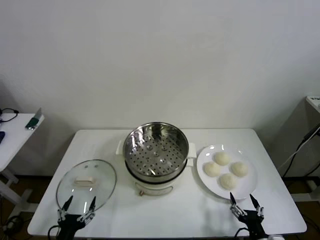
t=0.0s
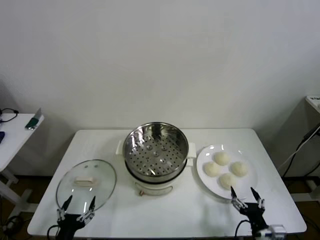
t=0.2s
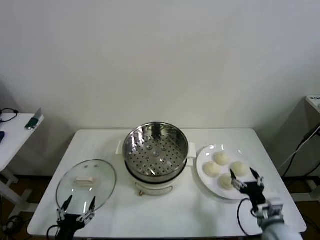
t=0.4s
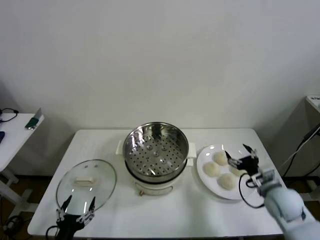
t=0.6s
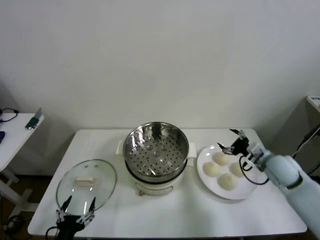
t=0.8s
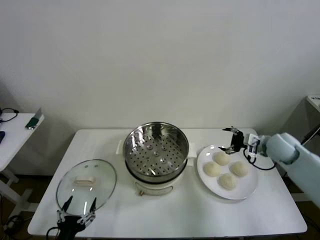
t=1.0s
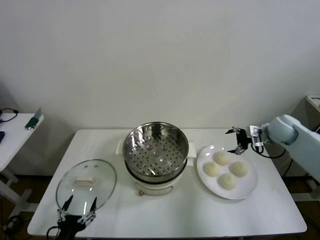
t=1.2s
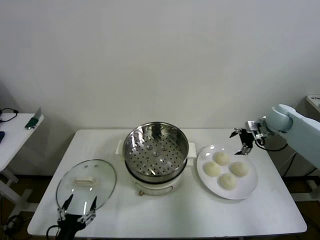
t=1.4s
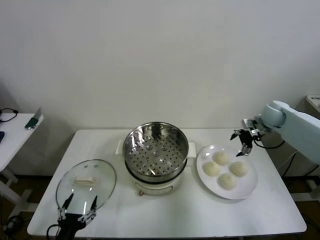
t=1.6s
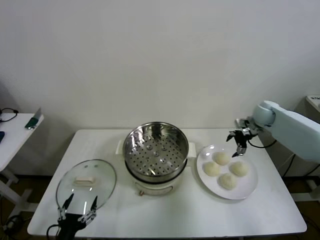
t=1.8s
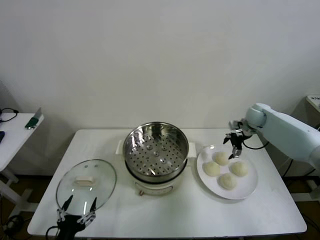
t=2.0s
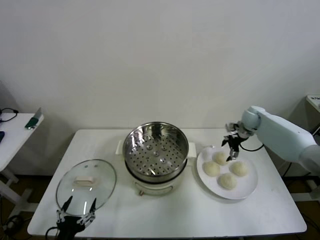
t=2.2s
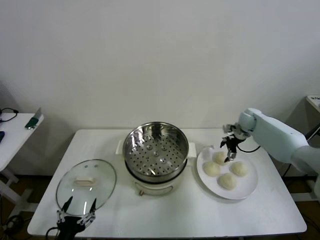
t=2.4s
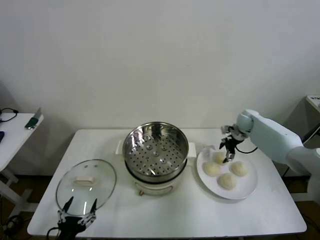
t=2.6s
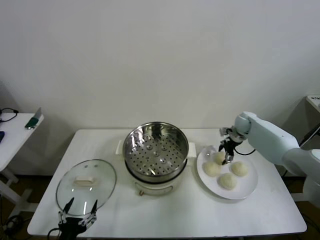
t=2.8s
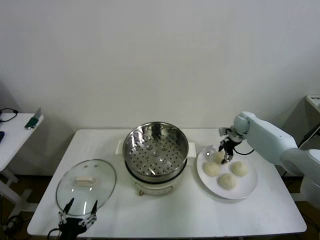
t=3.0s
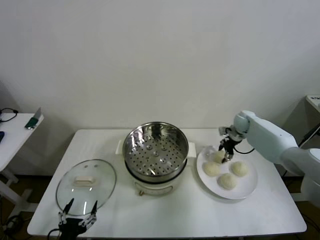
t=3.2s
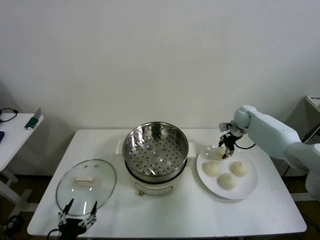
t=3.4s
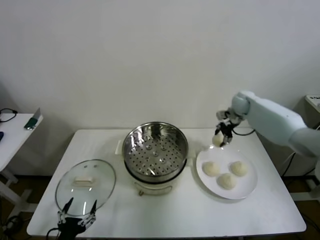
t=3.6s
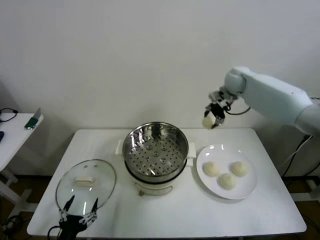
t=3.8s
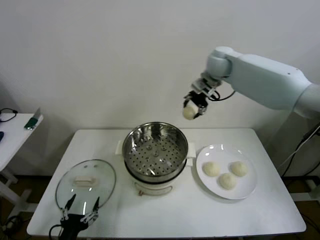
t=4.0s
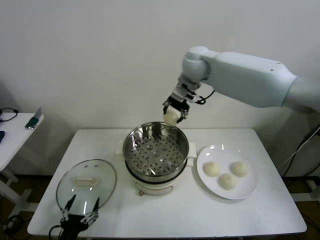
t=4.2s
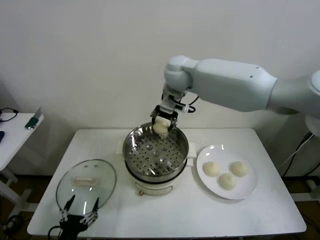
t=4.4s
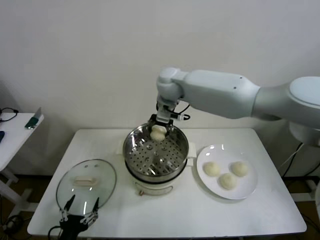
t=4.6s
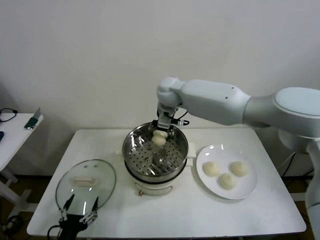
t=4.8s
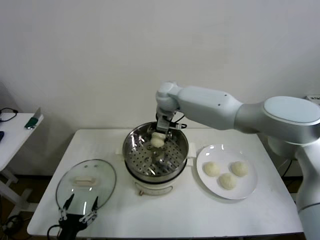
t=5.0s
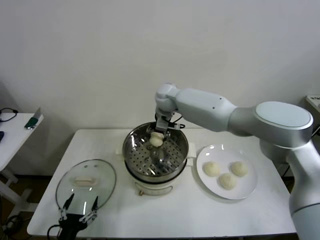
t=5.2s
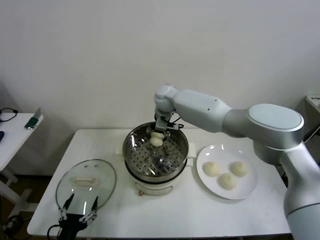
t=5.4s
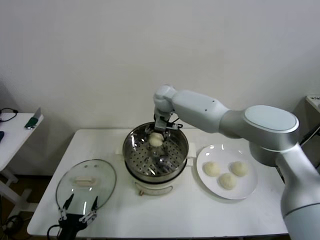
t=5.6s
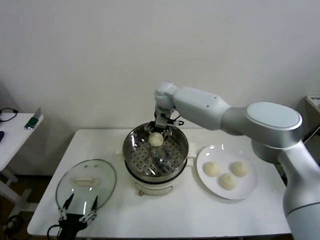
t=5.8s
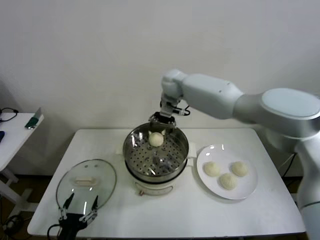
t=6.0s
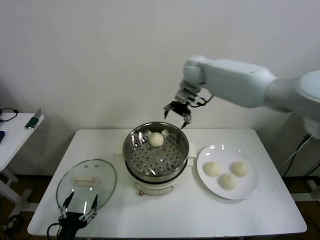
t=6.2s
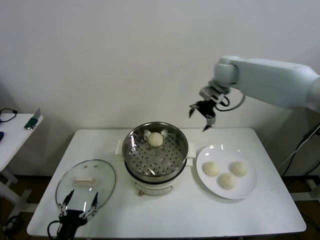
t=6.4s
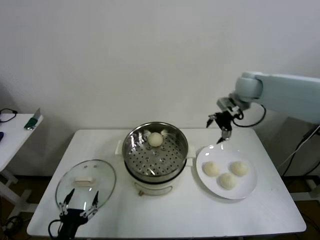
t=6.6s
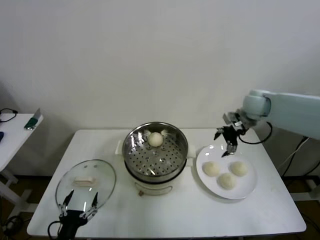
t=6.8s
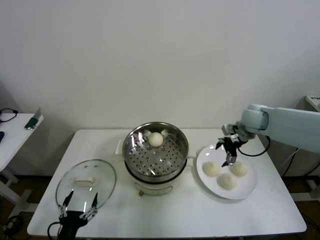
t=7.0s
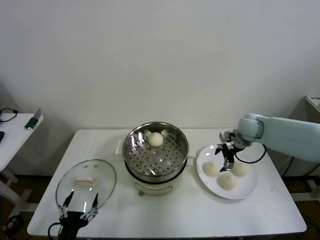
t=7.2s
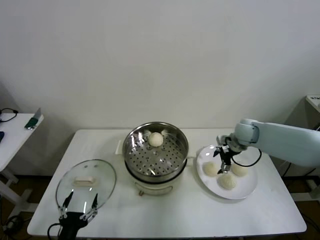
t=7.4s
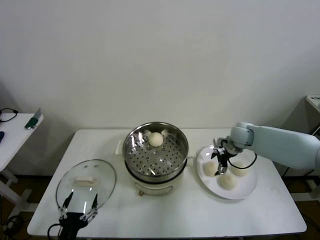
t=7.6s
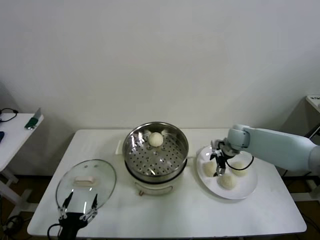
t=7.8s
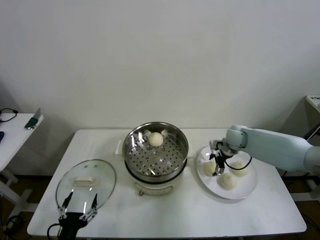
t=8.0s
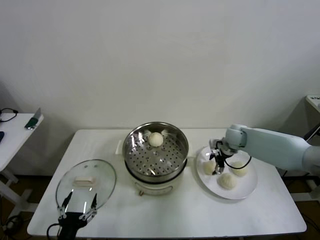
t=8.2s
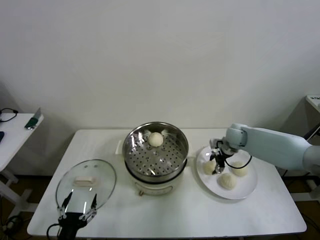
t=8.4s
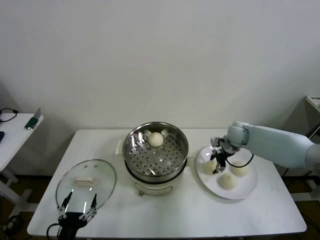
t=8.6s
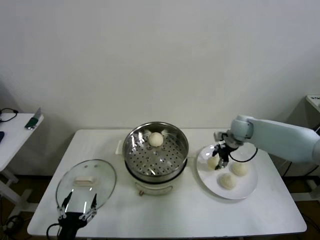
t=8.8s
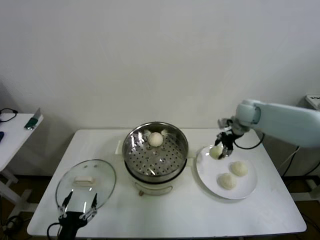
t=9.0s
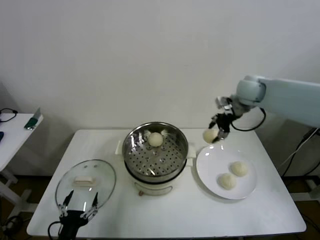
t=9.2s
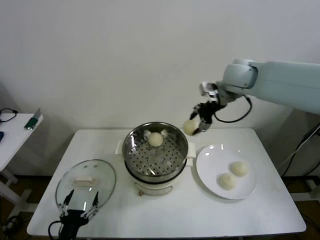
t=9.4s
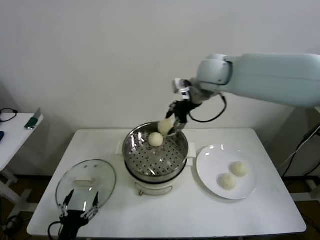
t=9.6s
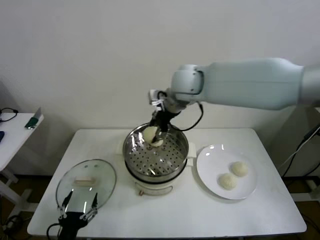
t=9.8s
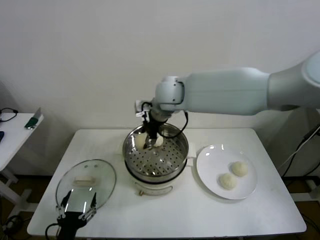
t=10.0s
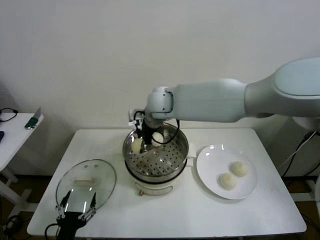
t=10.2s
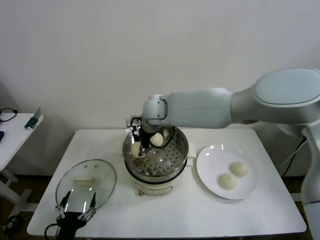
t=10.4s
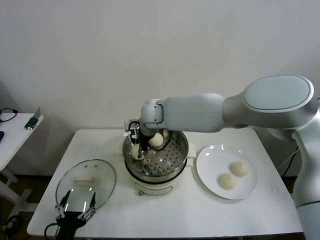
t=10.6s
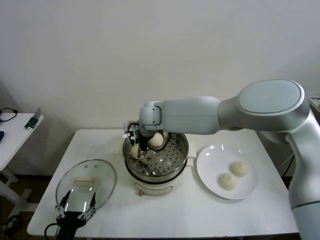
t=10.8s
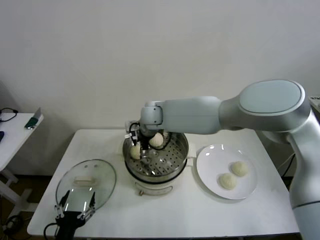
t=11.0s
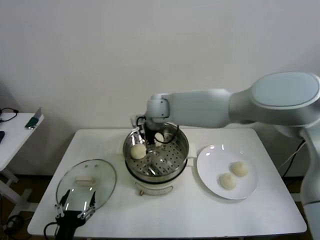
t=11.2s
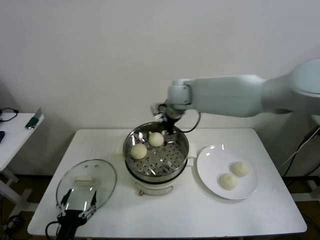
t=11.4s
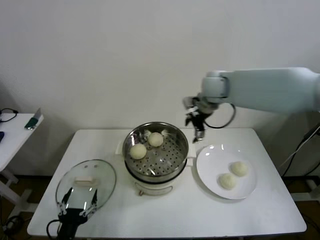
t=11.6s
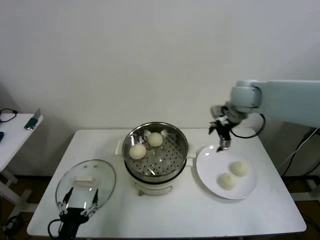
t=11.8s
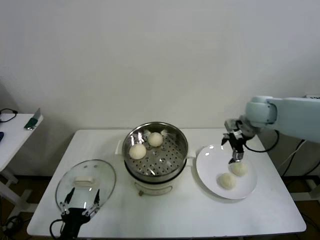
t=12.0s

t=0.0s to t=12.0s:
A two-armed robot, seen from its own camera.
Step, t=0.0s to t=3.0s: Grasp the baozi in the plate with right gripper.
Step, t=3.2s to t=5.8s: Place the baozi on the steamer with right gripper.
Step, t=6.2s to t=8.2s: Grasp the baozi in the plate with right gripper.
Step, t=8.4s to t=11.2s: Place the baozi on the steamer with right gripper.
t=1.6s to t=3.0s: The right gripper heads downward, covering about 10 cm, and closes its fingers.
t=3.0s to t=4.4s: The right gripper goes approximately 40 cm to the left and upward.
t=4.4s to t=6.0s: The right gripper heads forward, covering roughly 5 cm, moves roughly 10 cm downward and comes back, and opens its fingers.
t=6.0s to t=7.6s: The right gripper heads to the right and downward, covering some 30 cm.
t=7.6s to t=9.0s: The right gripper is displaced upward by approximately 15 cm, and closes its fingers.
t=9.0s to t=10.4s: The right gripper heads to the left, covering some 35 cm.
t=10.4s to t=12.0s: The right gripper heads to the right, covering approximately 35 cm, and opens its fingers.

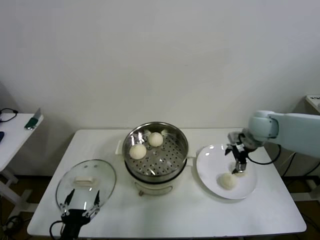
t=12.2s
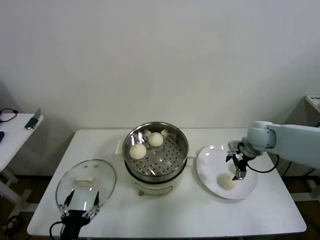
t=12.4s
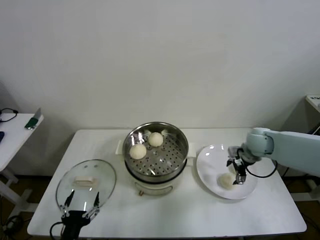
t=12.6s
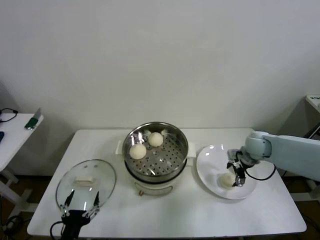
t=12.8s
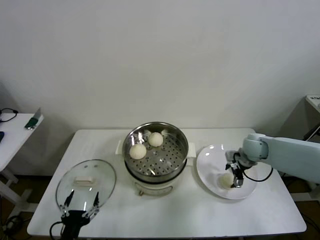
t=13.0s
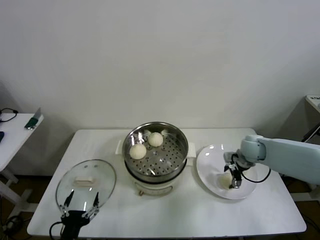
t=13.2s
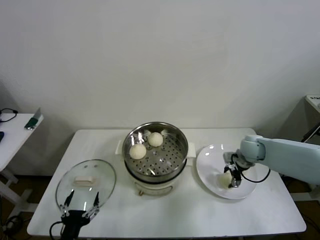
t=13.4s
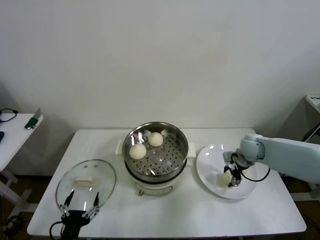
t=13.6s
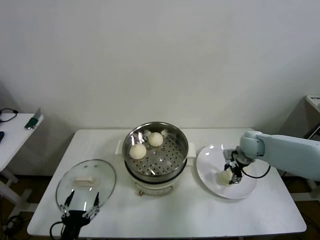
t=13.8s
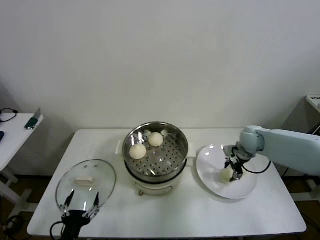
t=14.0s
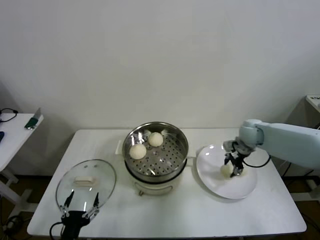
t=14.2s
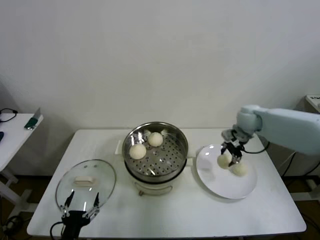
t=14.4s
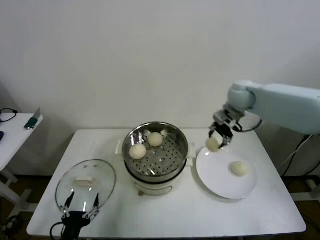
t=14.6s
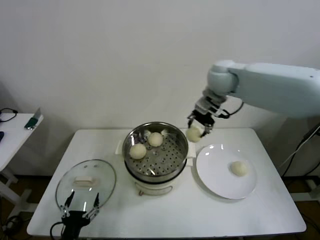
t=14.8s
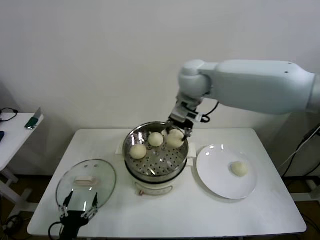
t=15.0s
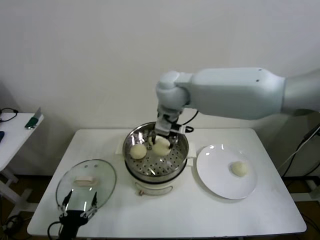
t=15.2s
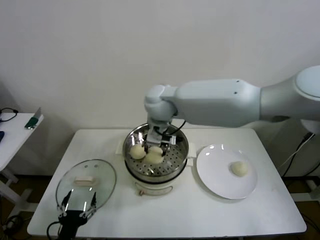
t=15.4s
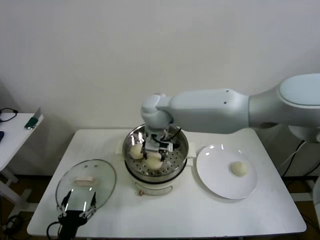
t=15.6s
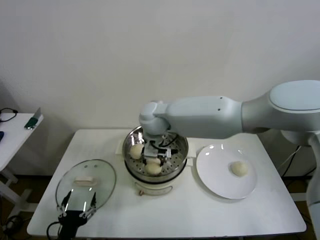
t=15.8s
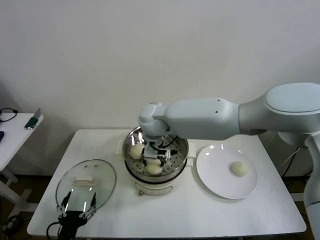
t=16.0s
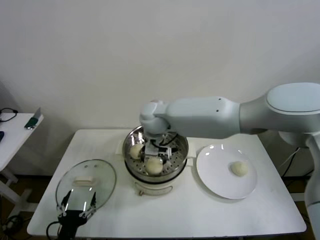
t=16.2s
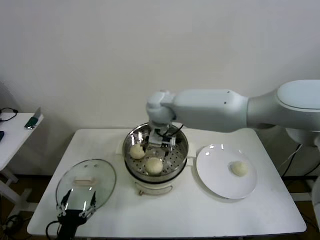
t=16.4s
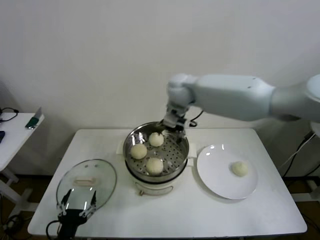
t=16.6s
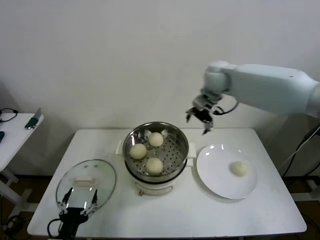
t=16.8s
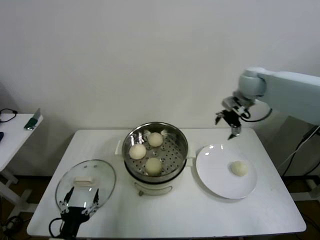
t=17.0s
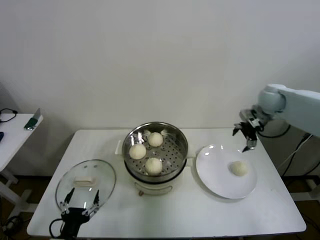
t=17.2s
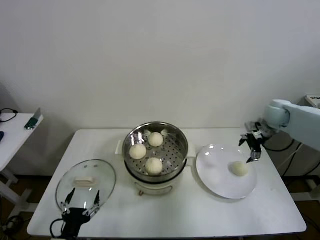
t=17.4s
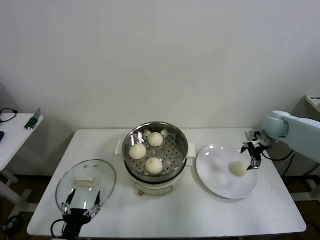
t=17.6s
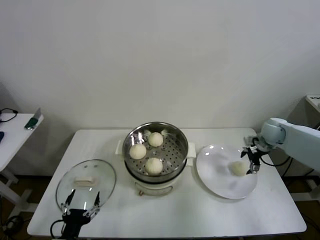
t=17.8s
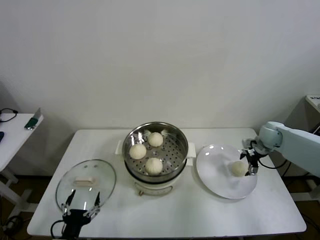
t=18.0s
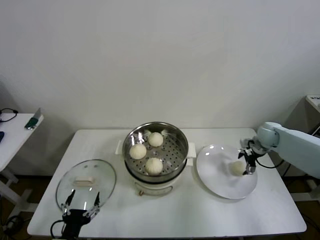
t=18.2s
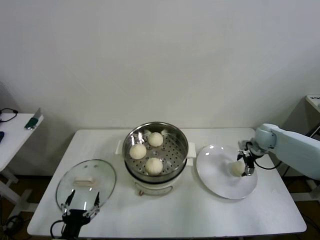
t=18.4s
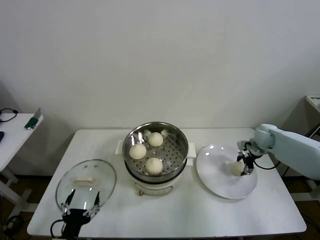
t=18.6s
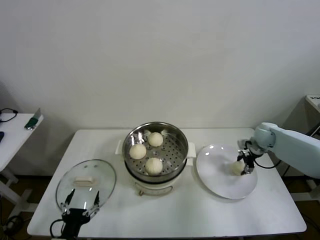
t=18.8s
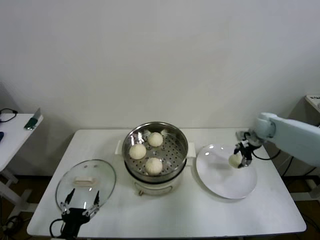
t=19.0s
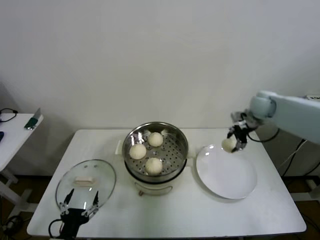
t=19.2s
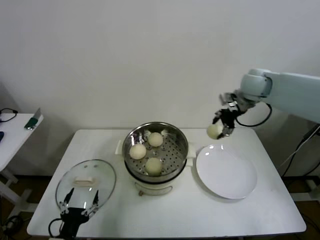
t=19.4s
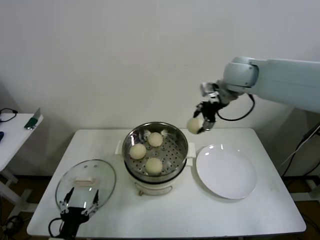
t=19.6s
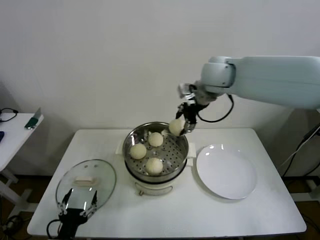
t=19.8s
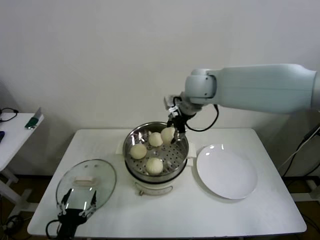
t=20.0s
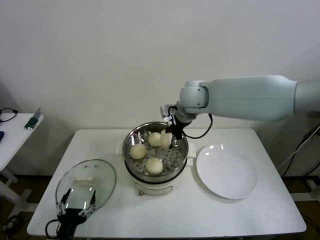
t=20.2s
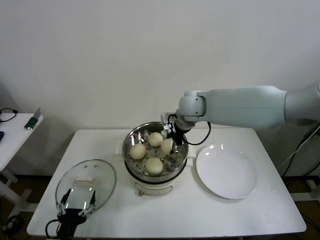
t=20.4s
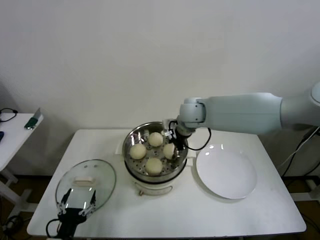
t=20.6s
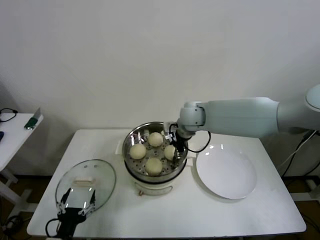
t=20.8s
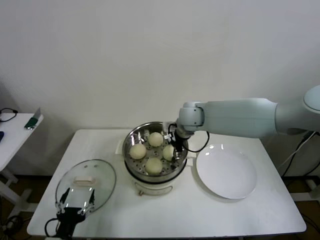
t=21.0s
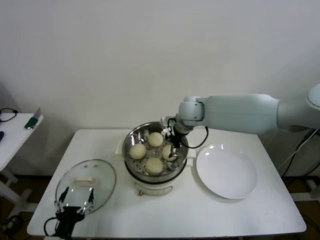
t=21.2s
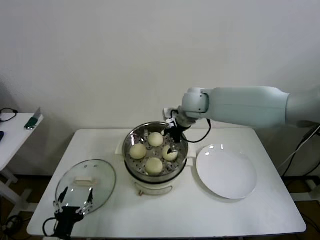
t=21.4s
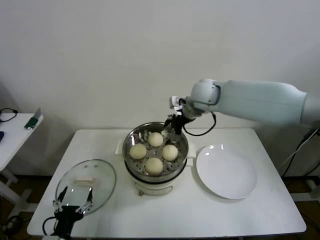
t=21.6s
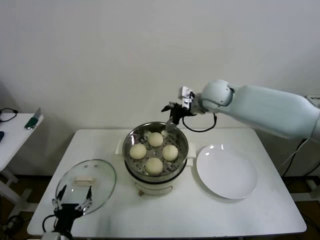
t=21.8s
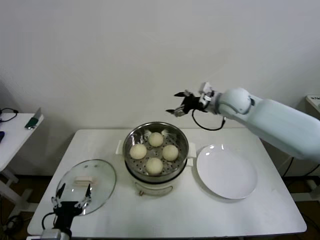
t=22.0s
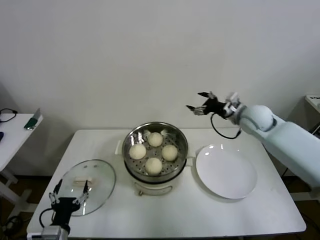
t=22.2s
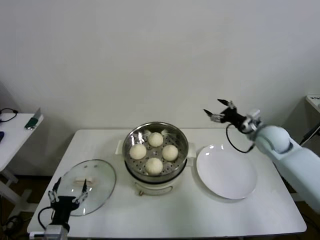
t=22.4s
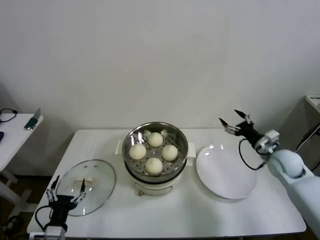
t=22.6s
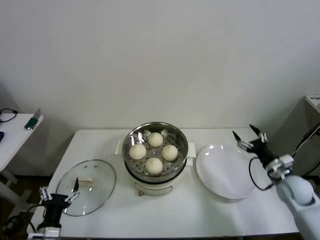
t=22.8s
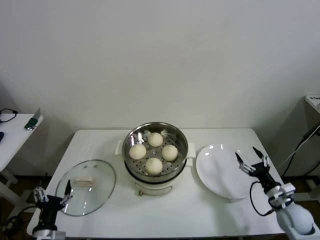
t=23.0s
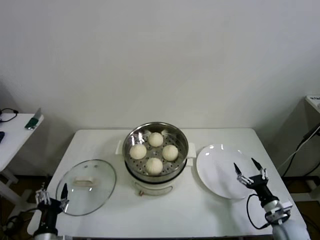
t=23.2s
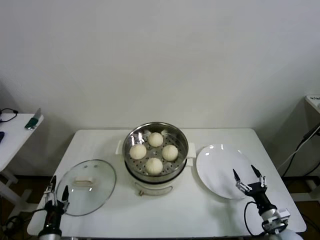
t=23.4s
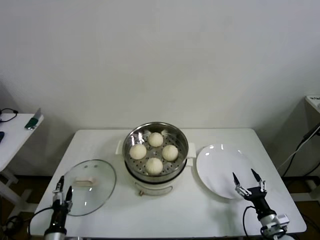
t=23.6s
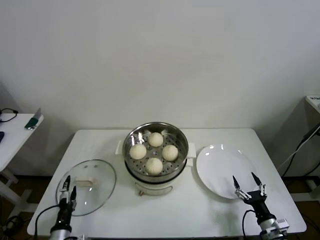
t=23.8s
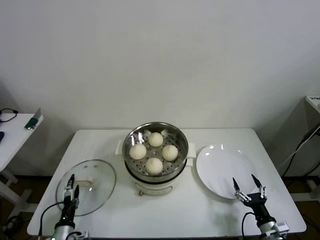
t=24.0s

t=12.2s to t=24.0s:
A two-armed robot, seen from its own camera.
Step, t=12.2s to t=13.6s: Grasp the baozi in the plate with right gripper.
Step, t=14.0s to t=16.2s: Place the baozi on the steamer with right gripper.
Step, t=16.6s to t=18.8s: Grasp the baozi in the plate with right gripper.
Step, t=19.0s to t=21.2s: Place the baozi on the steamer with right gripper.
t=12.2s to t=13.6s: The right gripper shifts roughly 10 cm downward, and closes up.
t=13.6s to t=15.2s: The right gripper goes approximately 40 cm to the left and upward.
t=15.2s to t=16.6s: The right gripper goes roughly 10 cm forward and to the right, and opens up.
t=16.6s to t=18.2s: The right gripper is displaced to the right and downward by some 40 cm.
t=18.2s to t=19.6s: The right gripper moves upward and to the left, some 35 cm, and closes up.
t=19.6s to t=21.0s: The right gripper moves downward and to the left, roughly 20 cm.
t=21.0s to t=22.6s: The right gripper travels to the right by about 30 cm, and opens its fingers.
t=22.6s to t=24.0s: The right gripper goes approximately 30 cm backward and downward. The left gripper goes about 10 cm downward.
